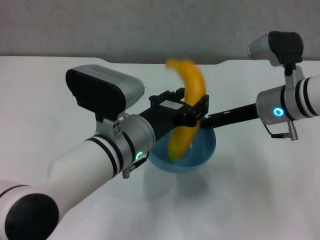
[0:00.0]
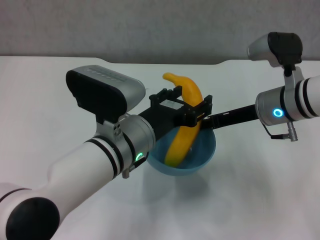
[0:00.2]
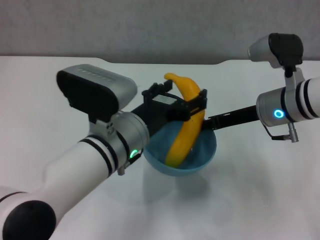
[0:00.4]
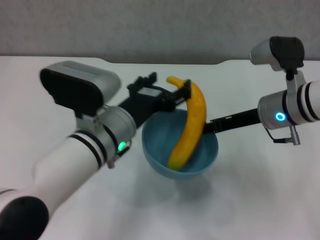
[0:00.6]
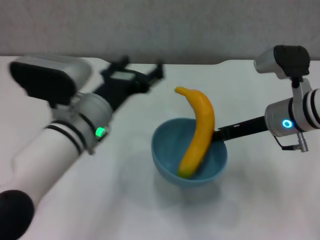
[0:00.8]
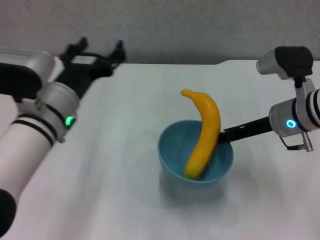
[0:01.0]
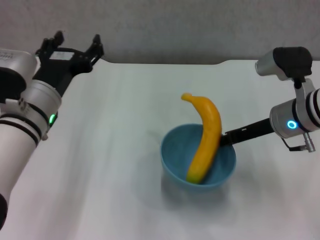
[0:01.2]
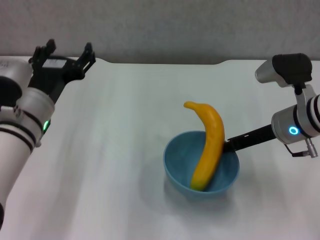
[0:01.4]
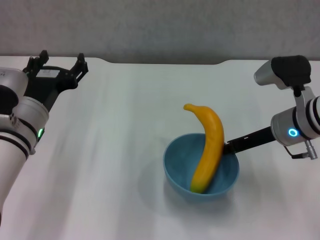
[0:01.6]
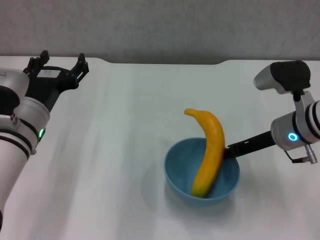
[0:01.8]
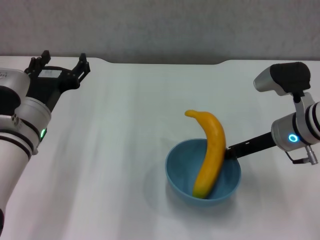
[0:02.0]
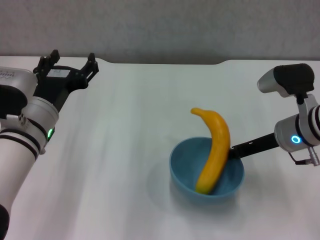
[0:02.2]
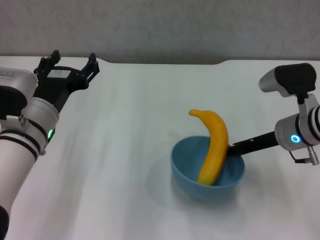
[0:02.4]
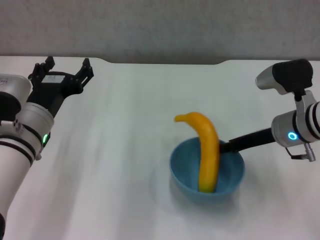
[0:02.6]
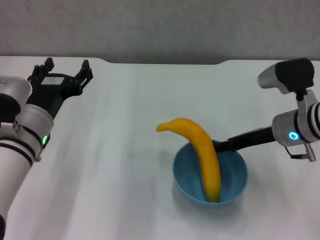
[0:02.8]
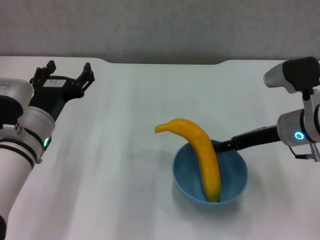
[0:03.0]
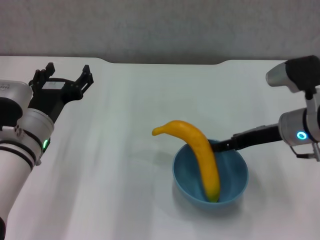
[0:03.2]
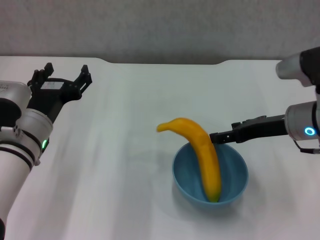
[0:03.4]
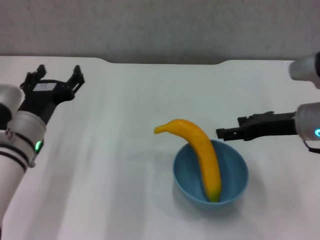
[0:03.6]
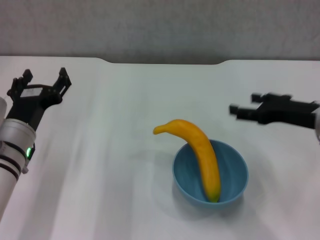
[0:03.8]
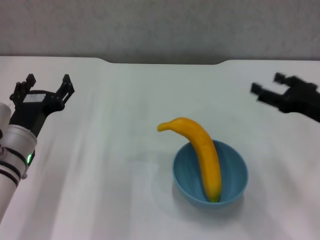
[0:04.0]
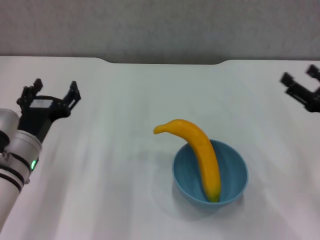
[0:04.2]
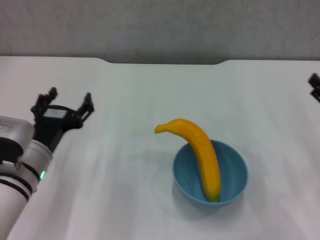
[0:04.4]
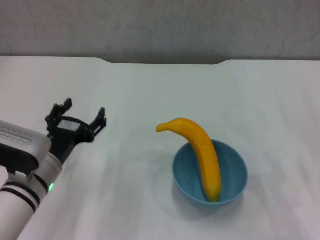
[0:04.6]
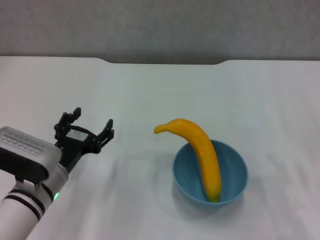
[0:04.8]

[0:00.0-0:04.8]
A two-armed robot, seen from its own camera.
Step, 0:00.6 to 0:03.2: Place the bowl on the table with right gripper.
0:00.0 to 0:01.6: The left gripper goes approximately 15 cm to the left, and opens its fingers.
0:01.6 to 0:03.2: The right gripper opens its fingers.
0:03.2 to 0:04.8: The left gripper goes about 5 cm downward; the right gripper heads backward, to the right and downward, covering about 15 cm.
